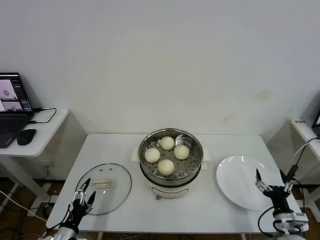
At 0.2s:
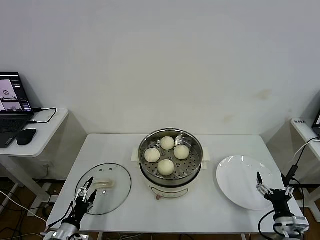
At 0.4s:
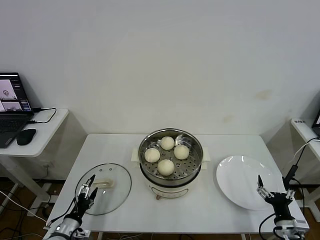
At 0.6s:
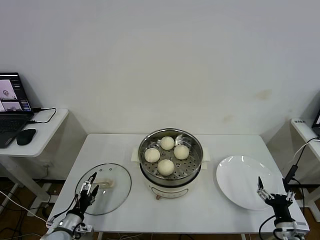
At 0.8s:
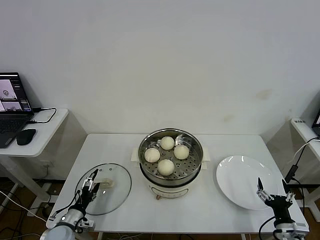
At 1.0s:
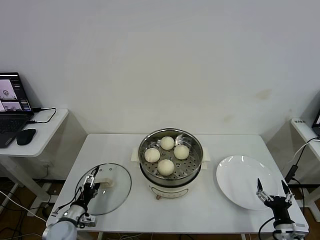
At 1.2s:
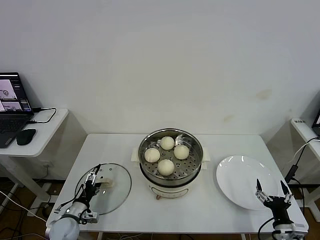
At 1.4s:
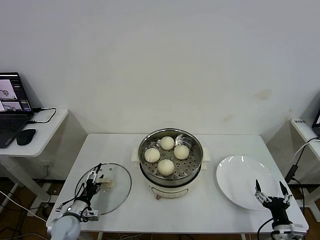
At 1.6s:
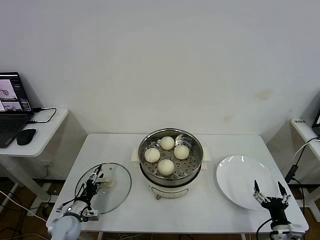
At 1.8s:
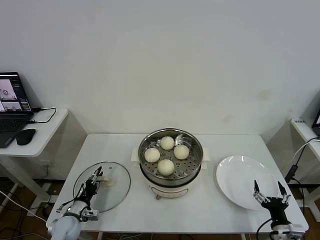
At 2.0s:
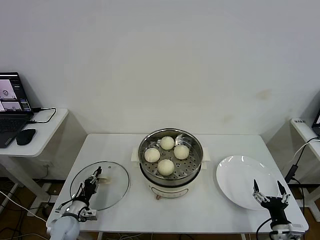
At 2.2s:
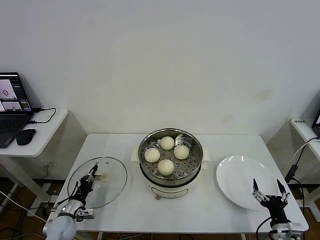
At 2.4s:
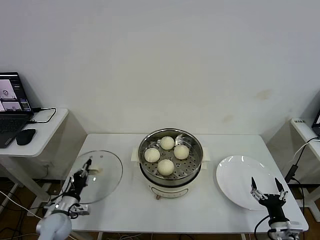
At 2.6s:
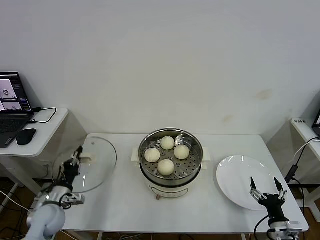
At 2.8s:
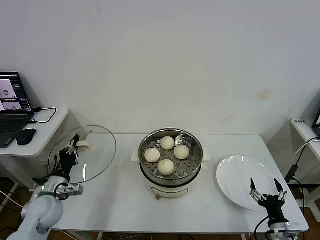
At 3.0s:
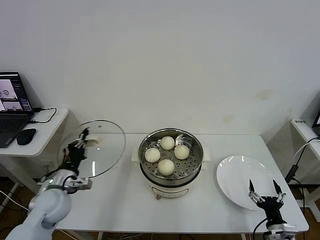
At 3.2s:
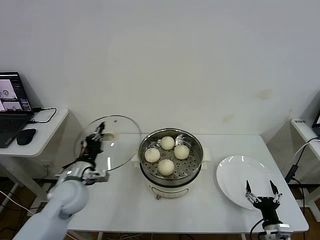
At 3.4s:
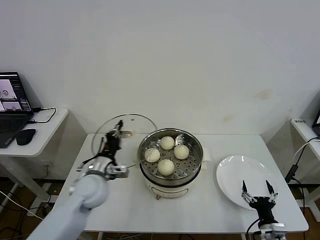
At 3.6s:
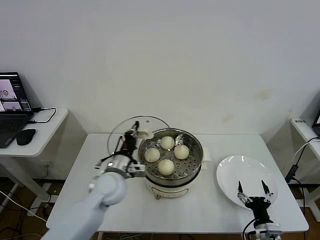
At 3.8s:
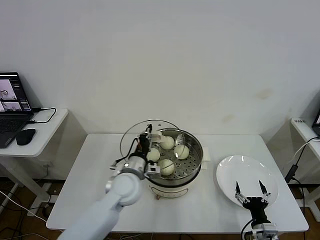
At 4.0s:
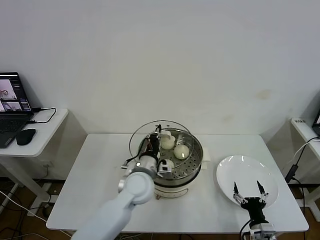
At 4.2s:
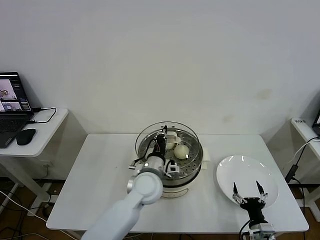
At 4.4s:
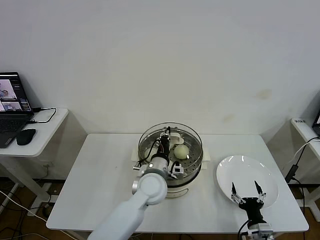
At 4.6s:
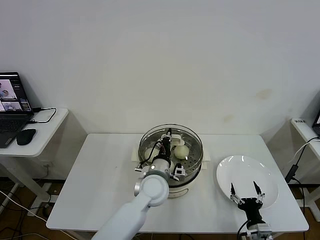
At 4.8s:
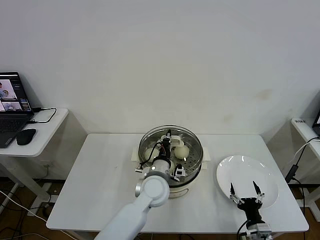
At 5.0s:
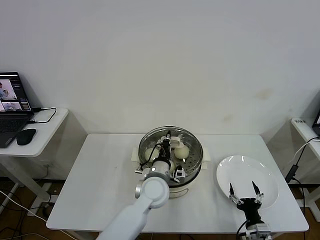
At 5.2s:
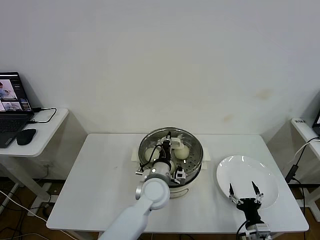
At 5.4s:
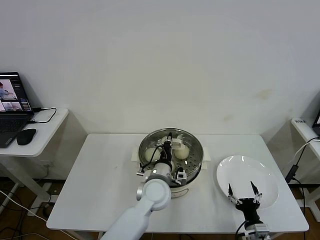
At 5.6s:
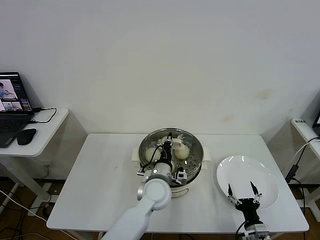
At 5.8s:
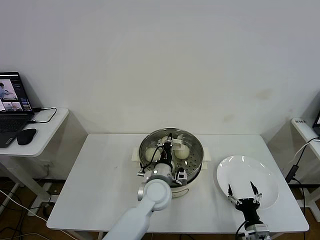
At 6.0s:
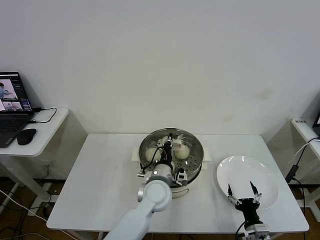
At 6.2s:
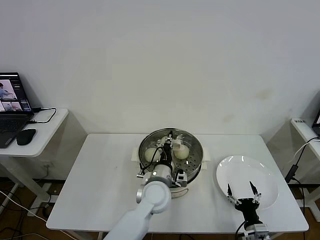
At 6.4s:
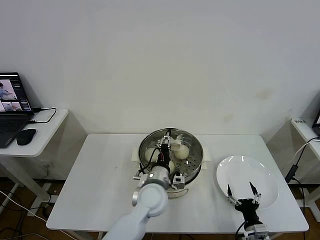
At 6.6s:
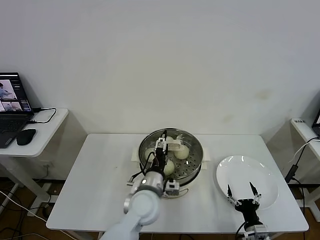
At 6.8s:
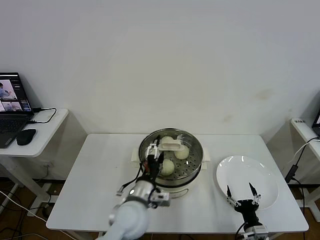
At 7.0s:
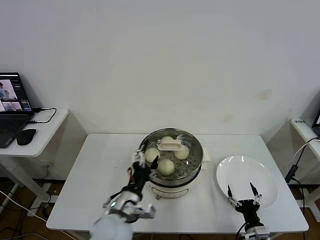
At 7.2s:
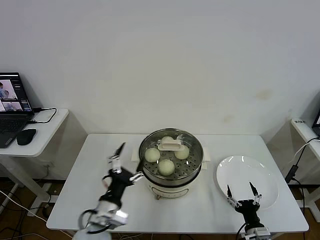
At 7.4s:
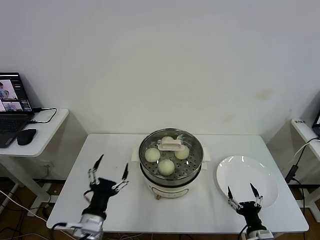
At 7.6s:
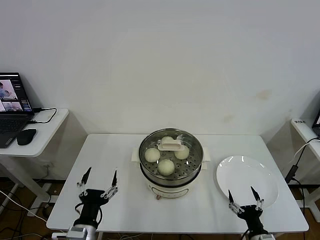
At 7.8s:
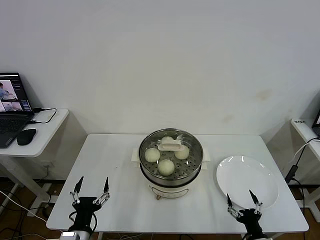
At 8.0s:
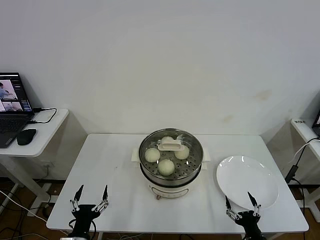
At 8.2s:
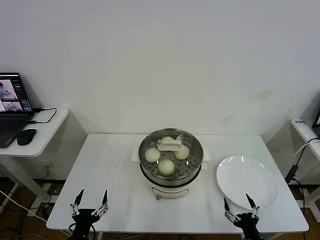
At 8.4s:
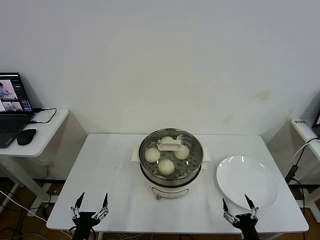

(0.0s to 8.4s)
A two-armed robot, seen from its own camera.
Step, 0.0s - 2.2s: Grasp the pot lid with left gripper.
Step, 2.4s - 6.6s: Place the pot lid on the steamer with left gripper.
0.0s - 1.4s: The left gripper is displaced forward by about 10 cm.
1.4s - 2.8s: The left gripper travels upward by approximately 15 cm, and closes up.
2.8s - 4.2s: The right gripper is displaced to the left by some 5 cm. Meanwhile the left gripper is displaced to the right by approximately 30 cm.
4.2s - 5.6s: There are only small adjustments of the grippers.
5.6s - 7.0s: The left gripper is displaced backward and to the left by some 15 cm, and opens its fingers.
7.0s - 8.4s: The left gripper heads to the left, backward and downward, covering about 25 cm. The right gripper moves backward, about 5 cm.

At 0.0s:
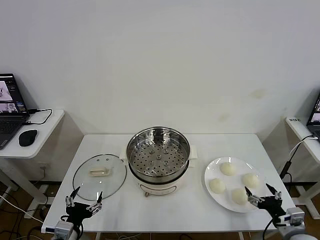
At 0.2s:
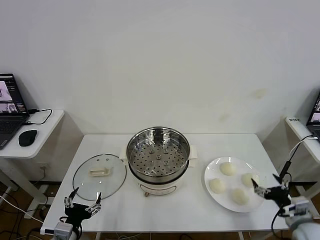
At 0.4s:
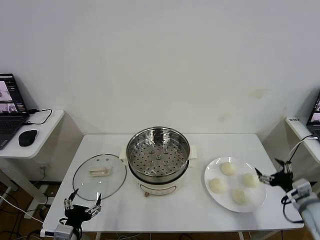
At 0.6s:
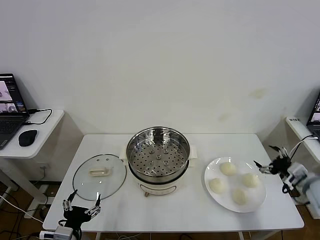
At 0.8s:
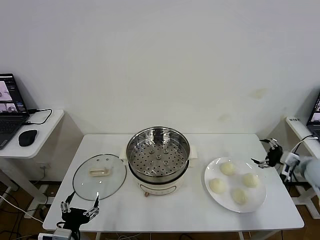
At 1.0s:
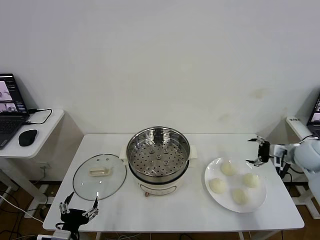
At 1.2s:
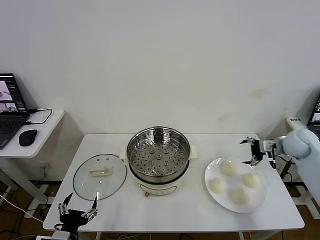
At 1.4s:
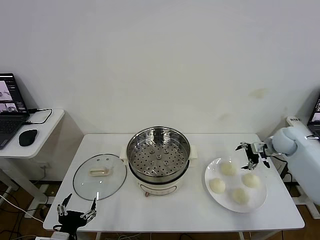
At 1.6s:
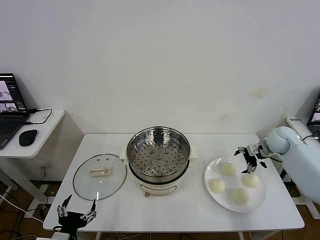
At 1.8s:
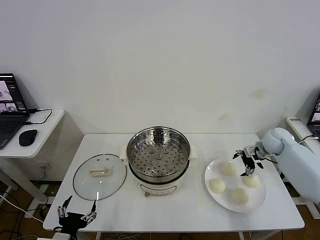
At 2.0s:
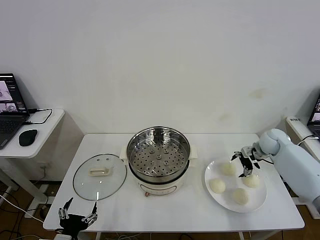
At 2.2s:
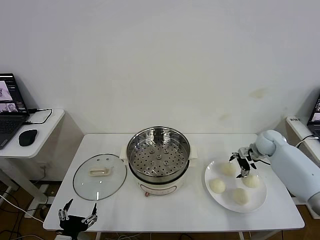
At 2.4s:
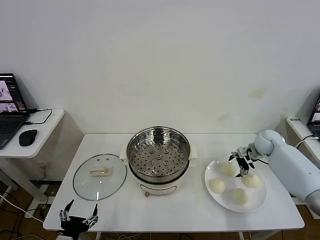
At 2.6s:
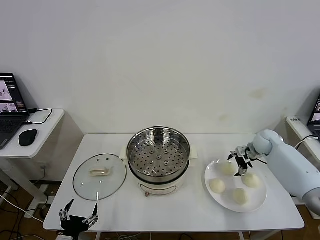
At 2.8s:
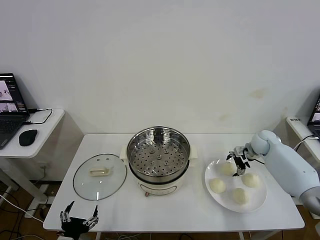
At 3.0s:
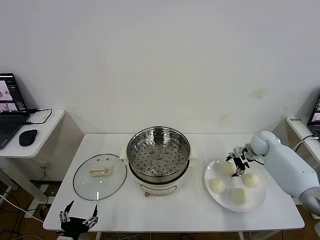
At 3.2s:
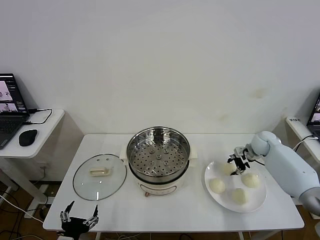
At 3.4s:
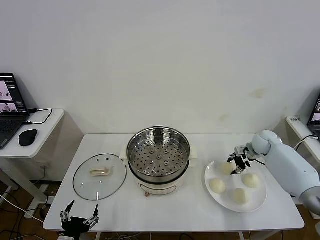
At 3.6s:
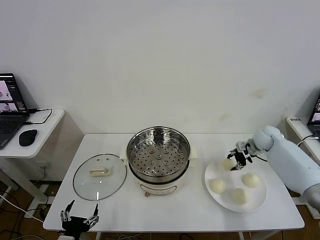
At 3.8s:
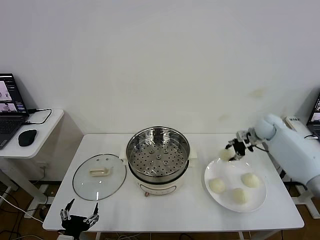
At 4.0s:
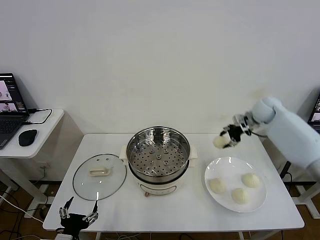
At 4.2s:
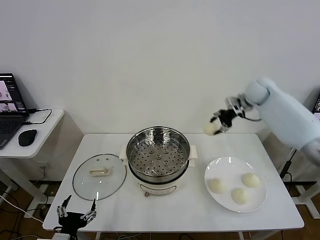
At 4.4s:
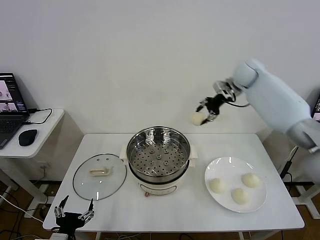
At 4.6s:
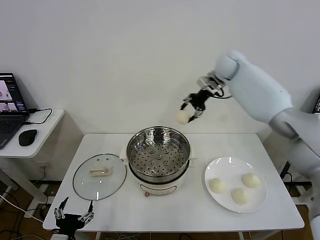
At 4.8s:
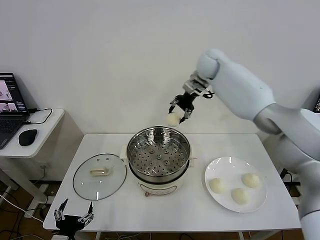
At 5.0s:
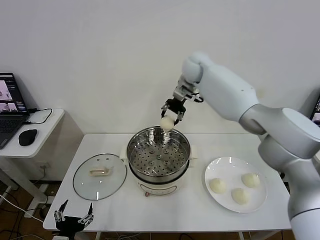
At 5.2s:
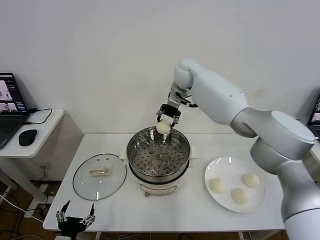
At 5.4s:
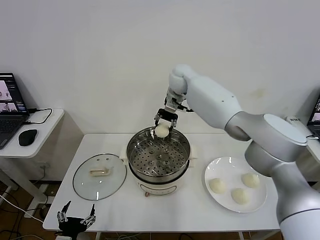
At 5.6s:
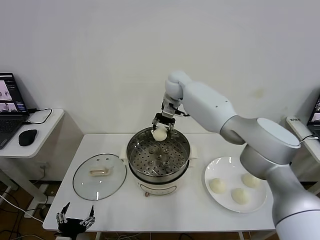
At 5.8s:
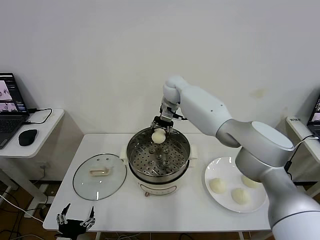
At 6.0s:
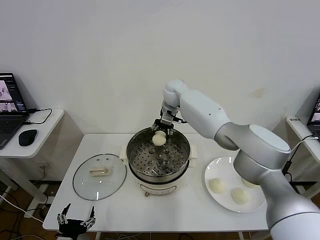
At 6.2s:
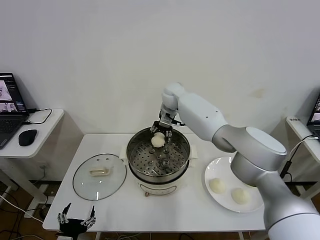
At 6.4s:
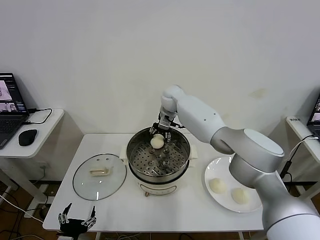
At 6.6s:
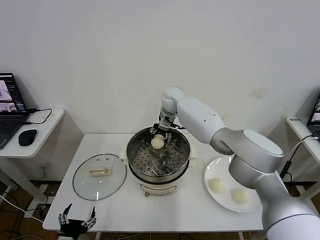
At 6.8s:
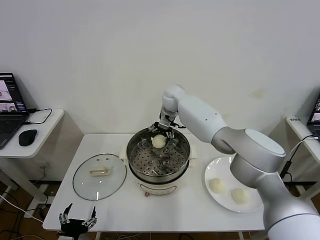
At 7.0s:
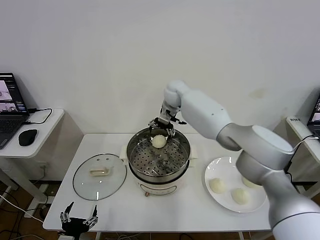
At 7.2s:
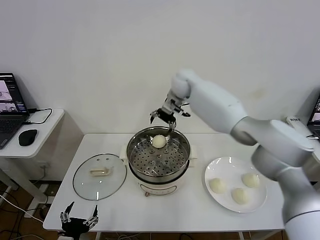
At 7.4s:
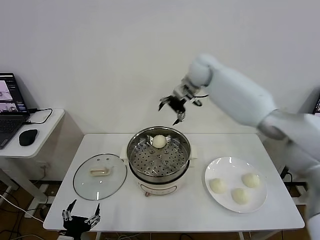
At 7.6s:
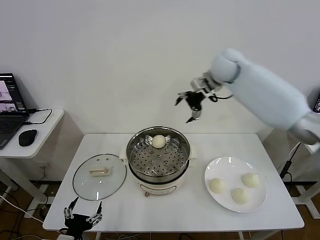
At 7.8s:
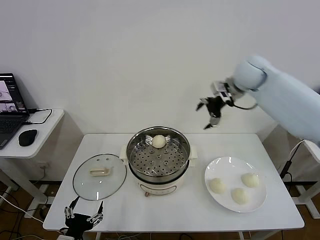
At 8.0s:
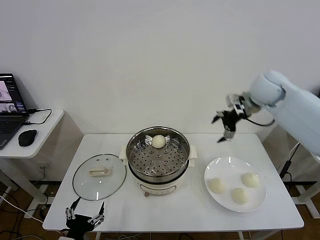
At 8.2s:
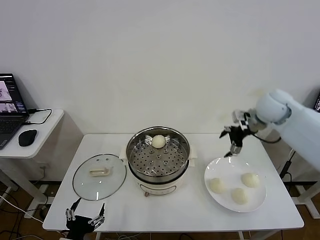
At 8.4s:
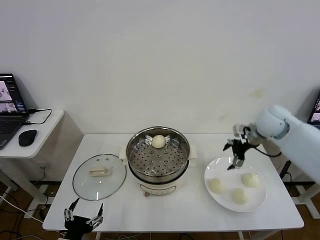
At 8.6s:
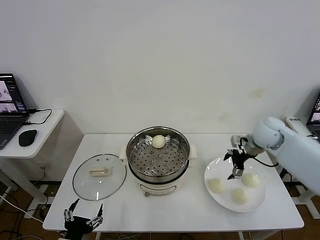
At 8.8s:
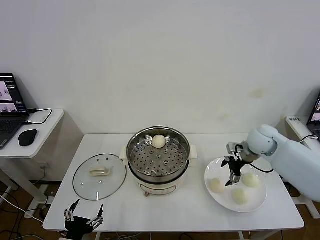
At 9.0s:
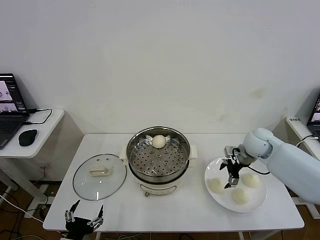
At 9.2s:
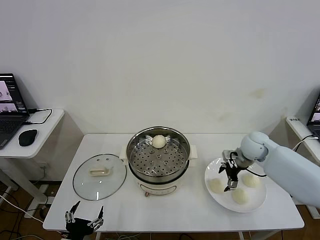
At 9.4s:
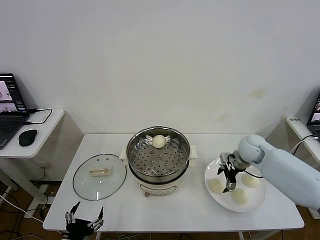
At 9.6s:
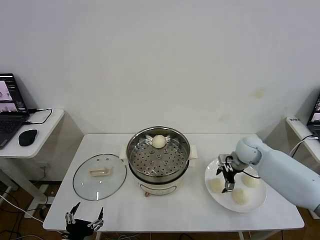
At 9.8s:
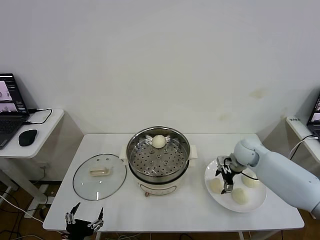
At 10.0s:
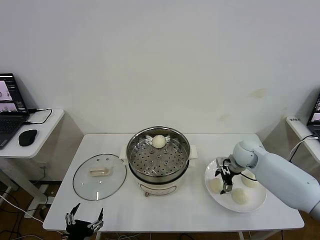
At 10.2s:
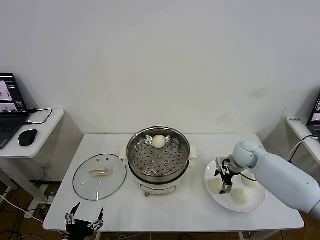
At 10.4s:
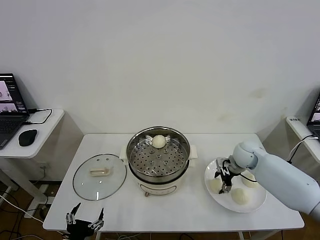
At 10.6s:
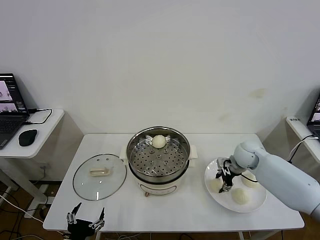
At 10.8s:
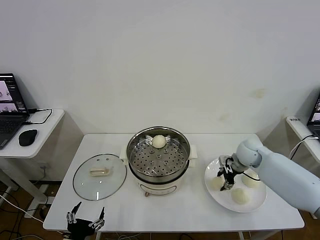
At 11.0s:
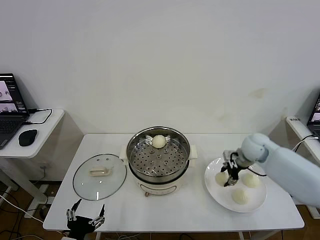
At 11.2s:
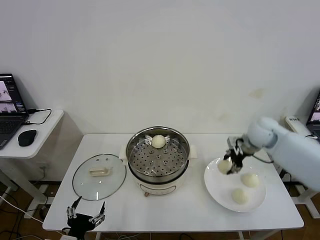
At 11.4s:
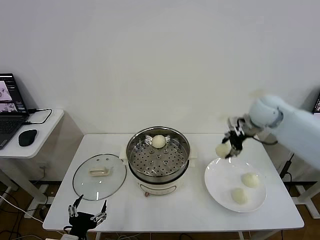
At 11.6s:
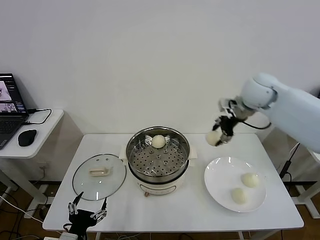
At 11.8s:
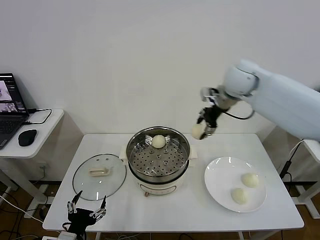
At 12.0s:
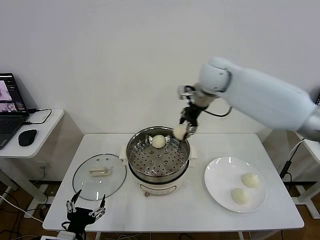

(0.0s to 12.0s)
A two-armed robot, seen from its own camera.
Step, 0.0s - 3.2s: Grasp the baozi in the plate with right gripper.
Step, 3.4s - 6.6s: Place the baozi on the steamer with right gripper.
Step, 6.8s - 10.4s: Grasp the baozi in the plate with right gripper.
1.6s - 3.0s: The right gripper changes place by some 5 cm, and closes its fingers.
3.0s - 4.4s: The right gripper moves upward, to the left and forward, about 35 cm.
4.4s - 6.0s: The right gripper travels to the left and downward by roughly 20 cm.
6.0s - 7.6s: The right gripper shifts about 25 cm to the right and upward, and opens its fingers.
7.6s - 9.0s: The right gripper travels downward and backward by roughly 25 cm.
9.0s - 10.4s: The right gripper travels downward by about 5 cm, and closes up.
10.4s - 12.0s: The right gripper goes about 35 cm upward and to the left.

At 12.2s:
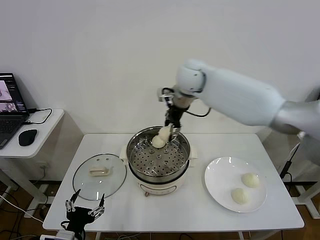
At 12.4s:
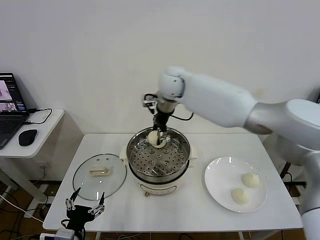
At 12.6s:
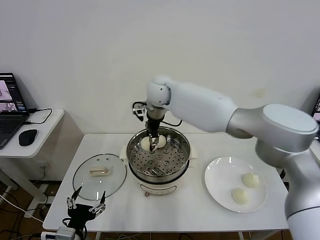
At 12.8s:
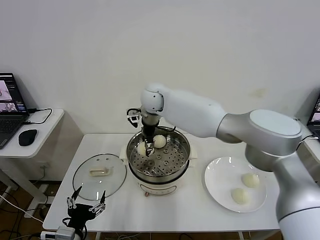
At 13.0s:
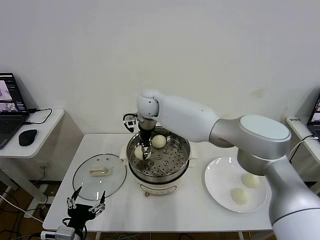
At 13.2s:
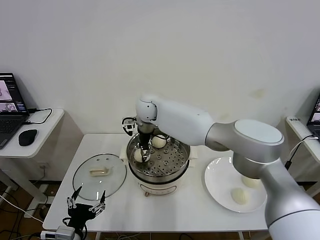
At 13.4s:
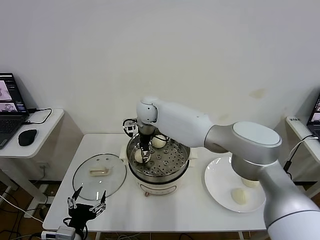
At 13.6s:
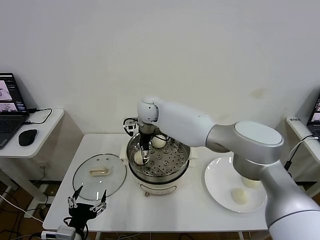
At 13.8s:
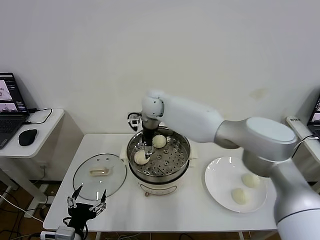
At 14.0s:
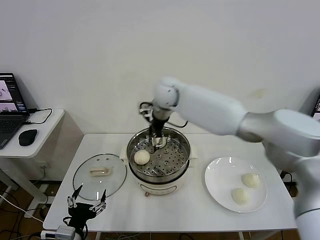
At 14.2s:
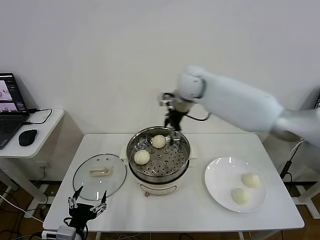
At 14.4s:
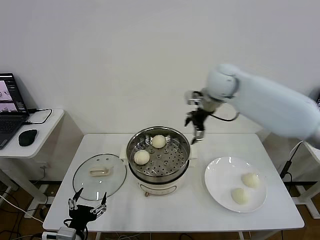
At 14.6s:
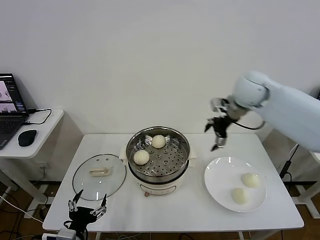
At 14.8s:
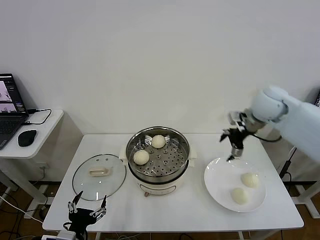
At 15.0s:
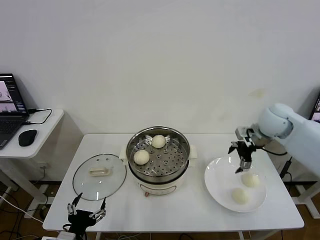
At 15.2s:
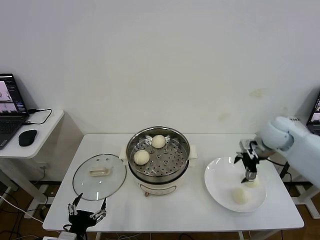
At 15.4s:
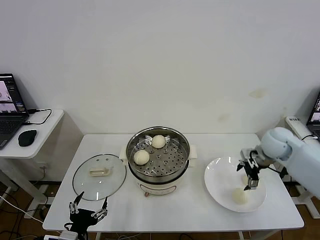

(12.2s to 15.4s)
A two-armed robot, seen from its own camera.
12.2s - 13.8s: The right gripper shifts roughly 10 cm downward and to the left, and opens.
13.8s - 15.4s: The right gripper goes roughly 40 cm to the right.
